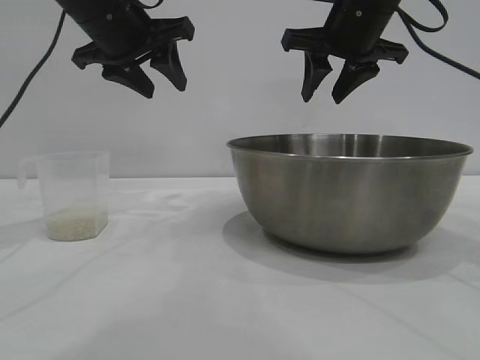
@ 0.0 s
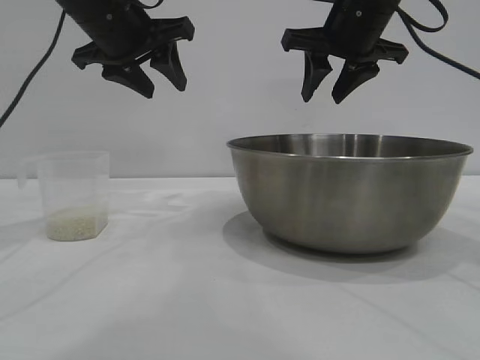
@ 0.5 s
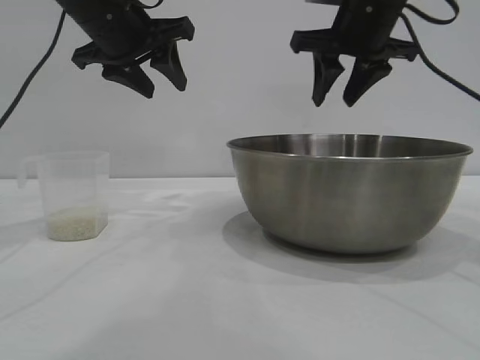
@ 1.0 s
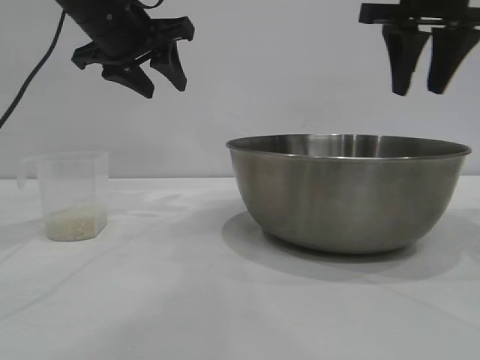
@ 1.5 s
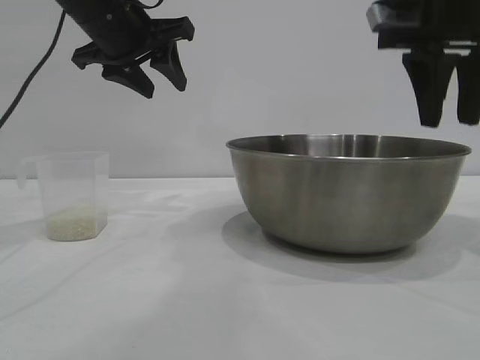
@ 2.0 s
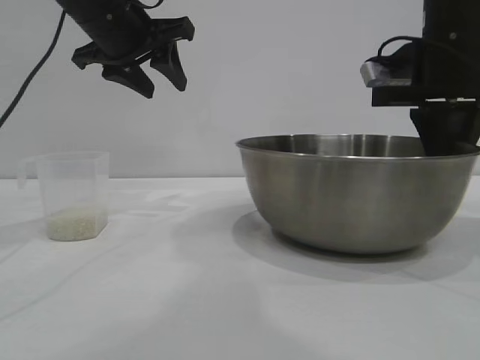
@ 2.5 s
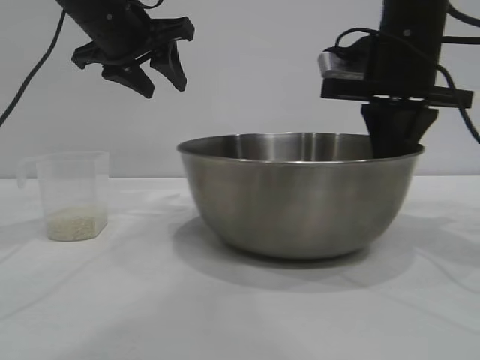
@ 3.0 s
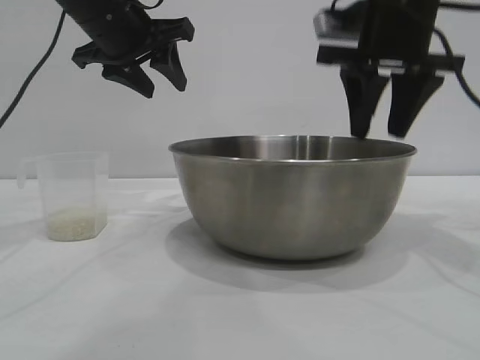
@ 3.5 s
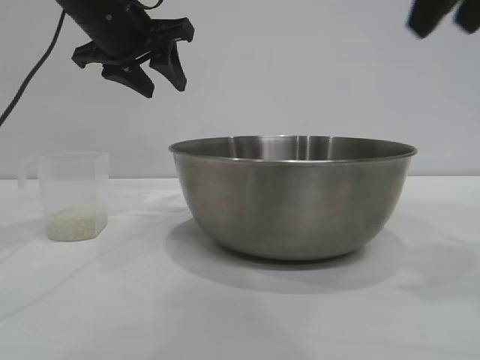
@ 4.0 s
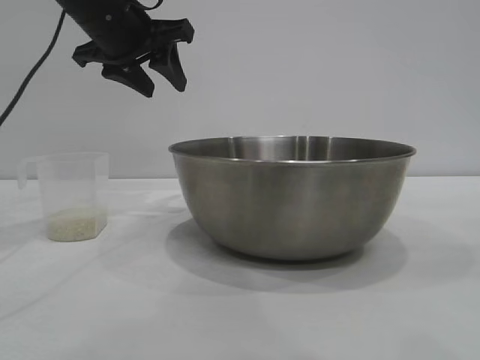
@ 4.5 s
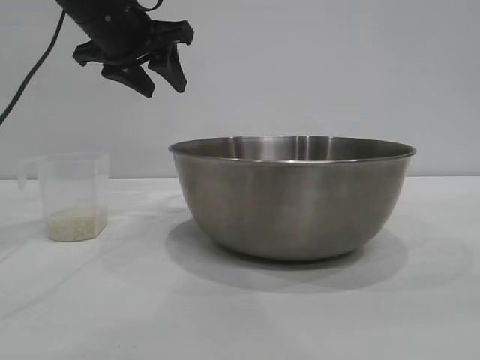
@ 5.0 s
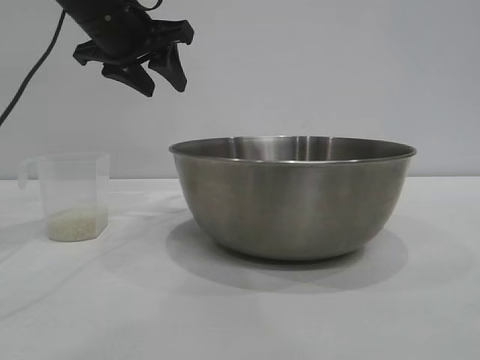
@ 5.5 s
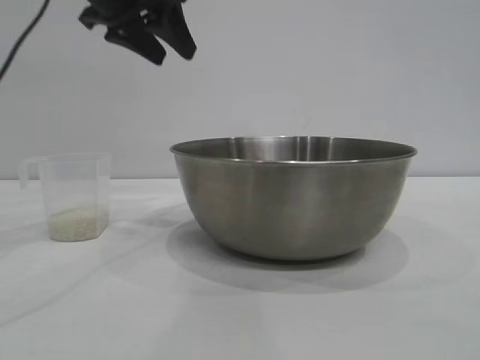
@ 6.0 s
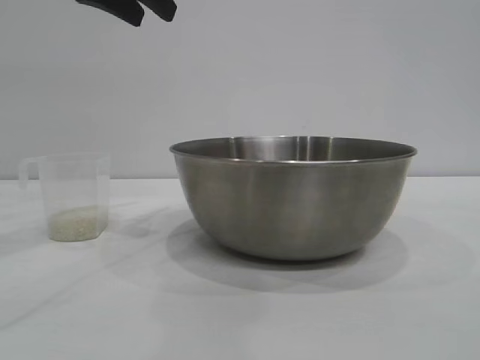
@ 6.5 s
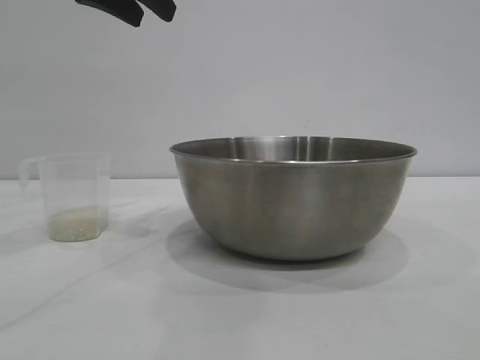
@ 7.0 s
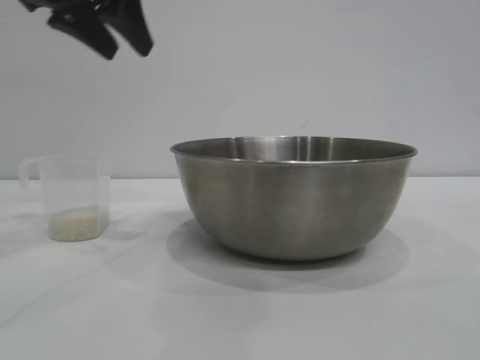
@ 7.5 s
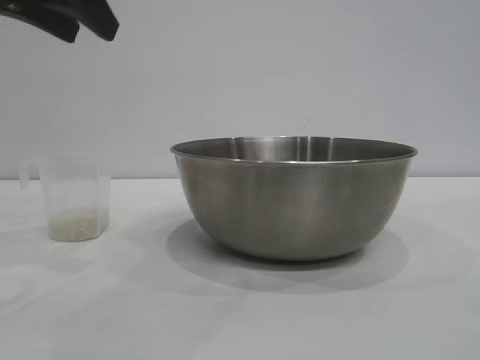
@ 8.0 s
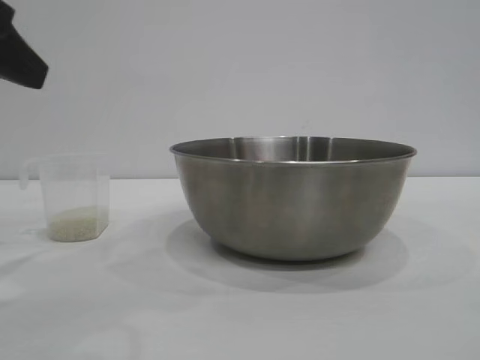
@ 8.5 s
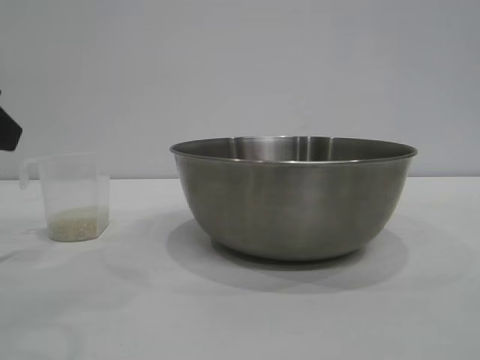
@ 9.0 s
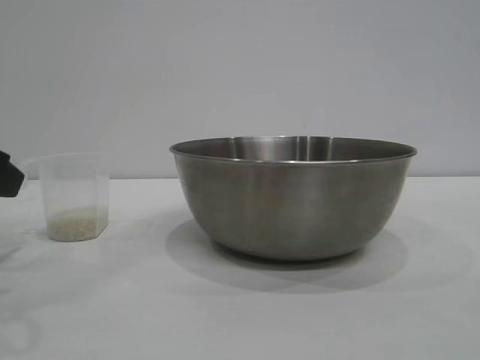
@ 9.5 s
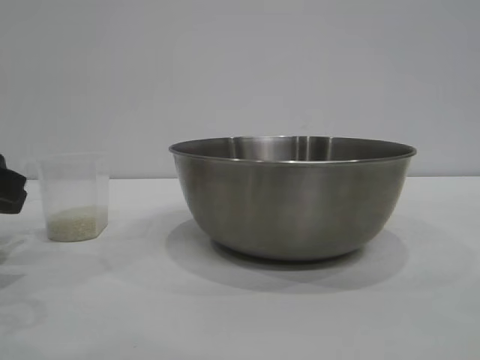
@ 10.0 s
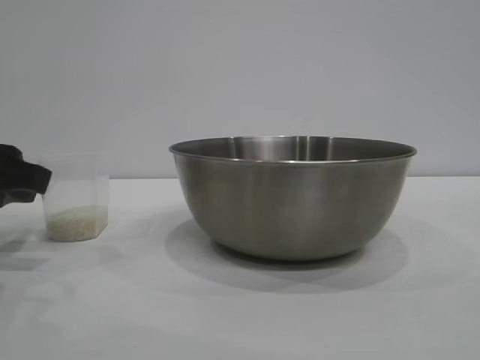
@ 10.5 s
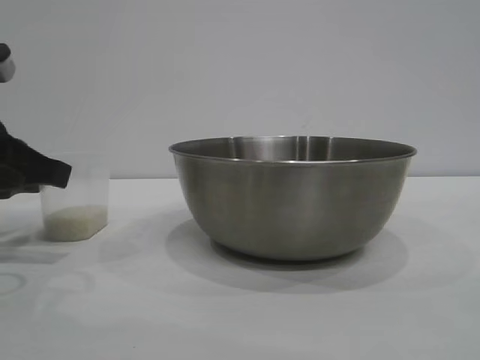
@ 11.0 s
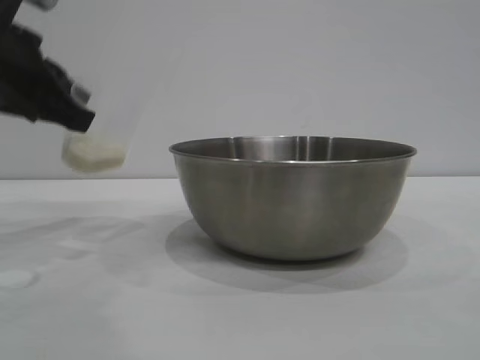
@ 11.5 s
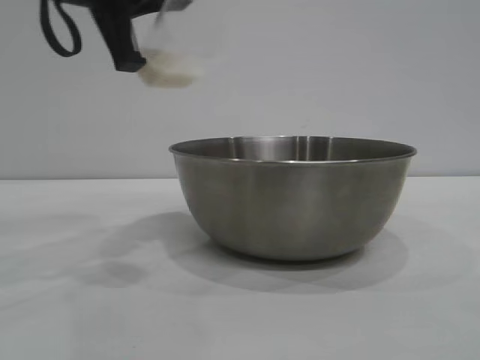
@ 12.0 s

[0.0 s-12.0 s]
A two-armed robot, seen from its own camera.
Task of the whole recording: the right gripper grasp the rice container and place it in the center of the table, the left gripper grasp the rice scoop and pour the rice into the rice container.
Step, 0.0 to 3.5 s: Move the bowl to the center of view with the right gripper.
Step, 4.0 to 11.0 s: Pick up the cup with rice in it with the left gripper.

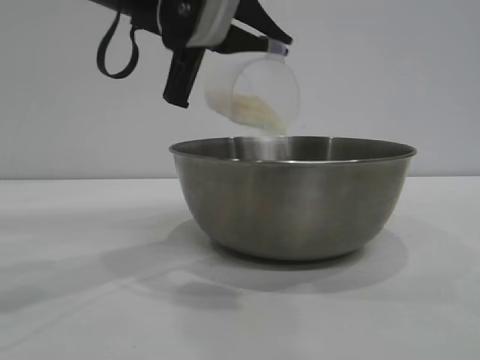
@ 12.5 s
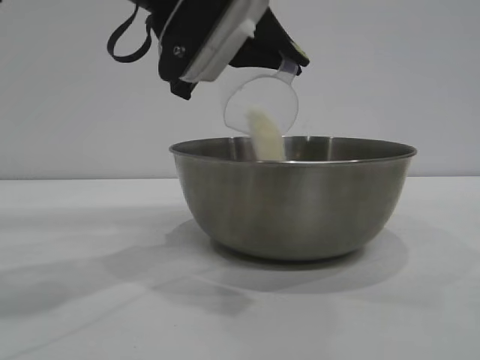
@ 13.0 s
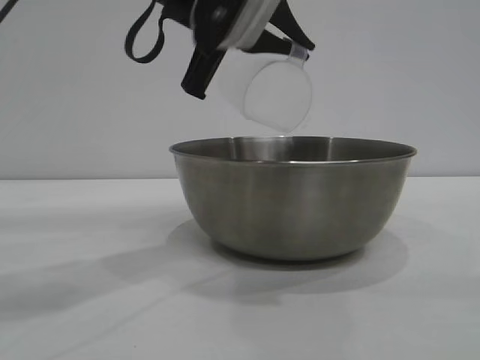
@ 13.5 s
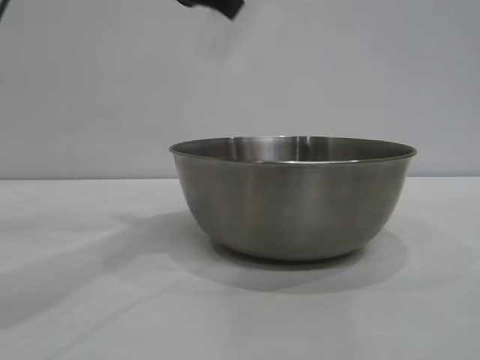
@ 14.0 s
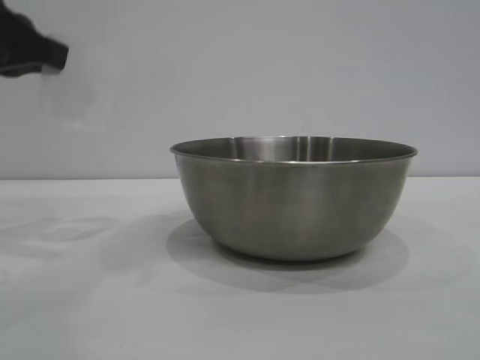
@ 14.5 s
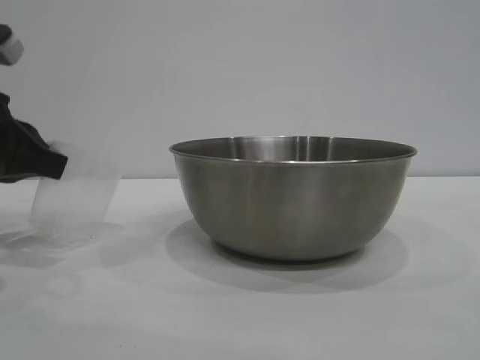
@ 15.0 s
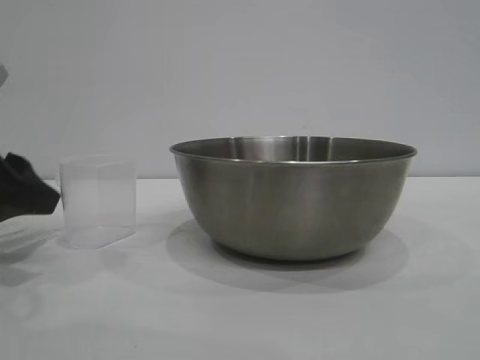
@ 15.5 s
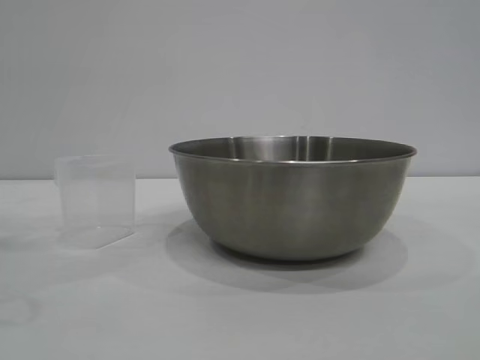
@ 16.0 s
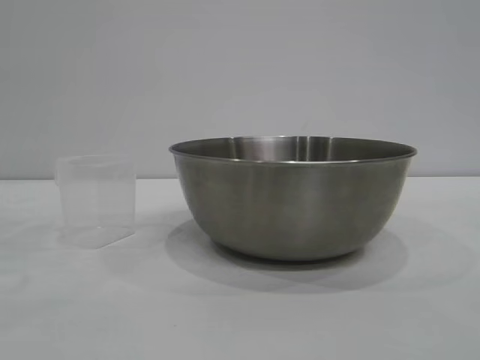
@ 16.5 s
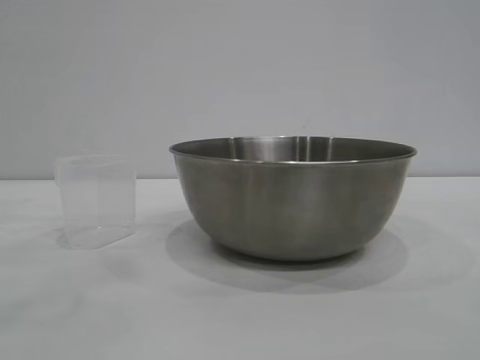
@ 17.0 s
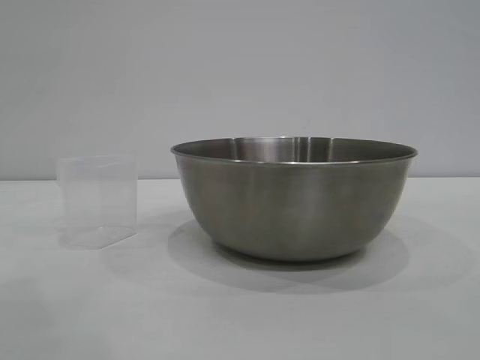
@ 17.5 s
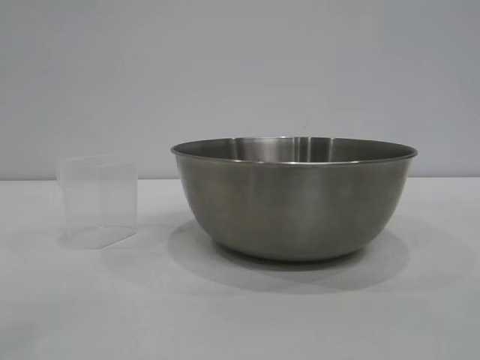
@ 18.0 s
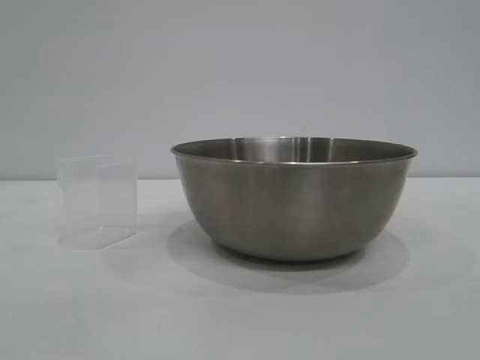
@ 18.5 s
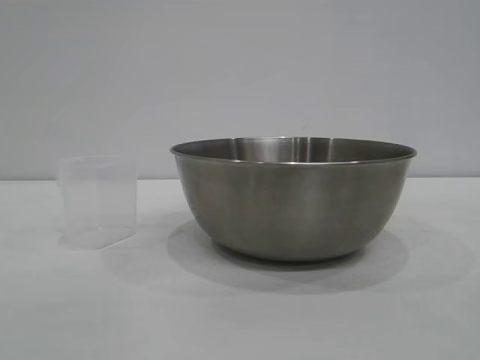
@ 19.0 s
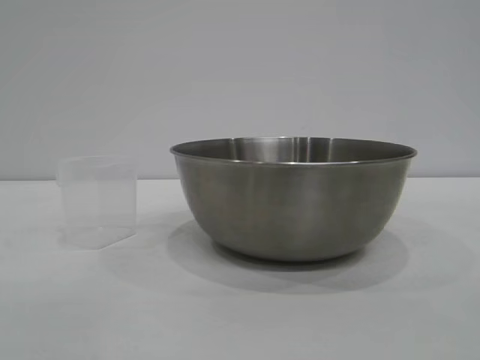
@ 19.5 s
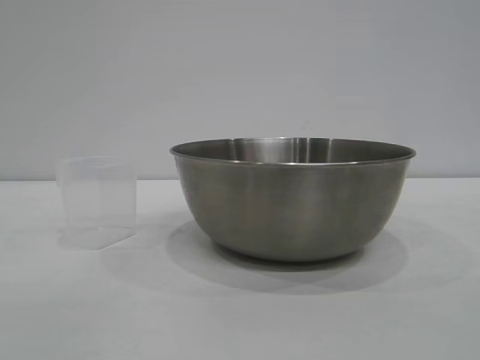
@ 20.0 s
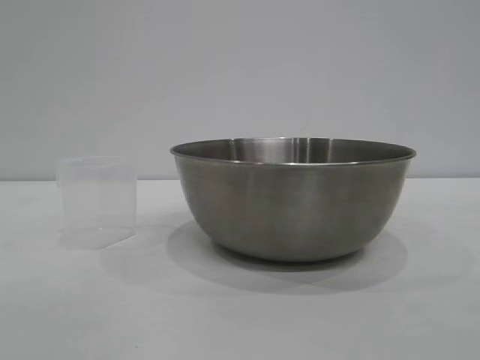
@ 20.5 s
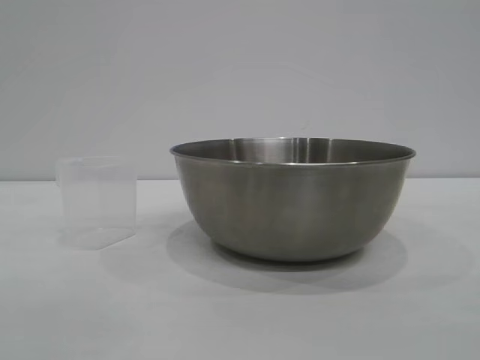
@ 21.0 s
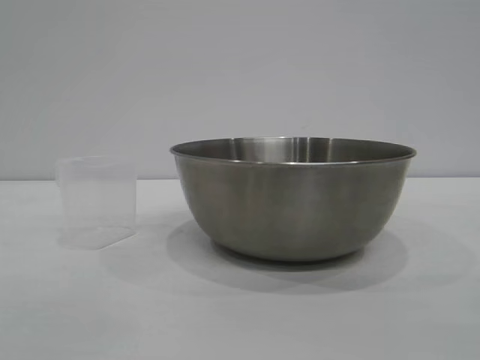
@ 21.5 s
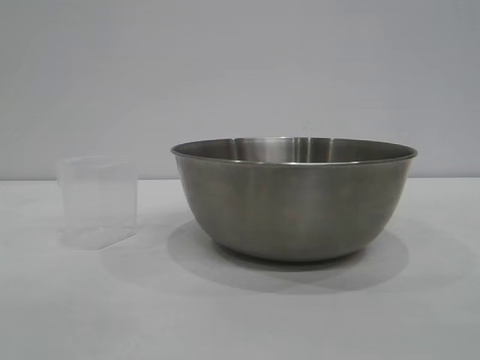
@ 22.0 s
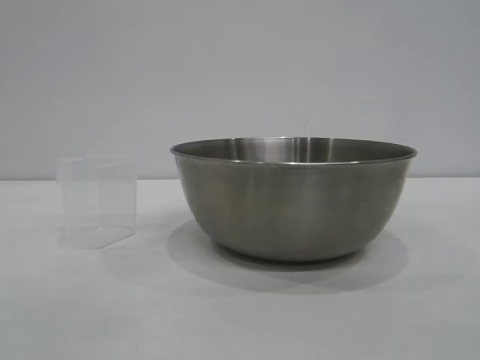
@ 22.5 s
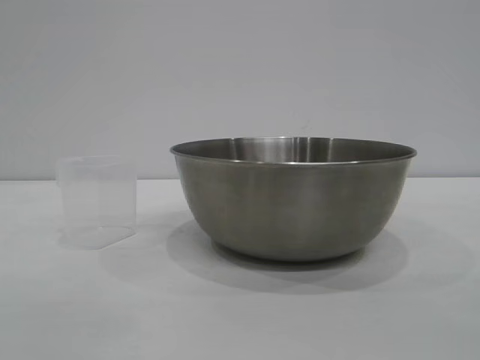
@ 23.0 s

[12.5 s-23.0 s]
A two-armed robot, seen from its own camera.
Task of the whole recording: the right gripper grasp the rice container and place it in the center of the table, the left gripper grasp the rice scoop and pour the rice into the rice container.
Step, 14.0 to 15.5 s: Place the cup on the table with the left gripper.
